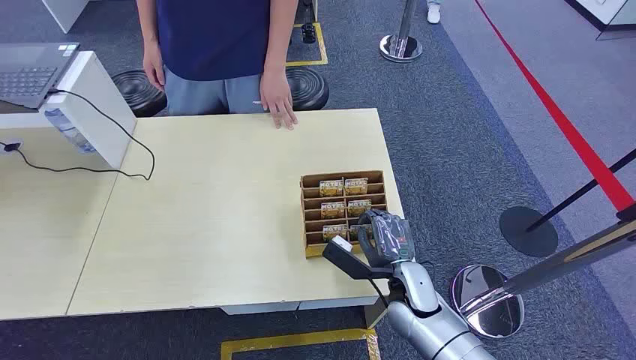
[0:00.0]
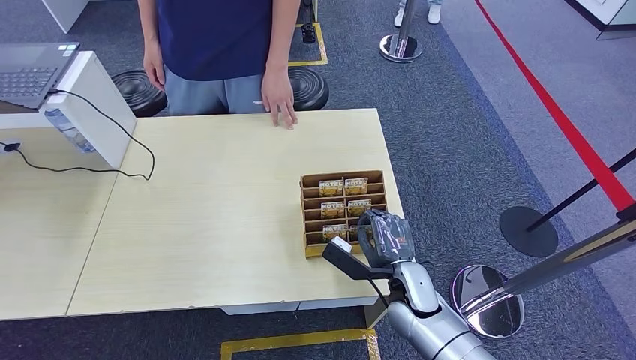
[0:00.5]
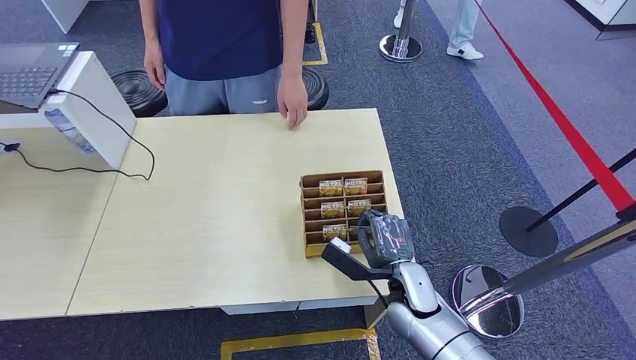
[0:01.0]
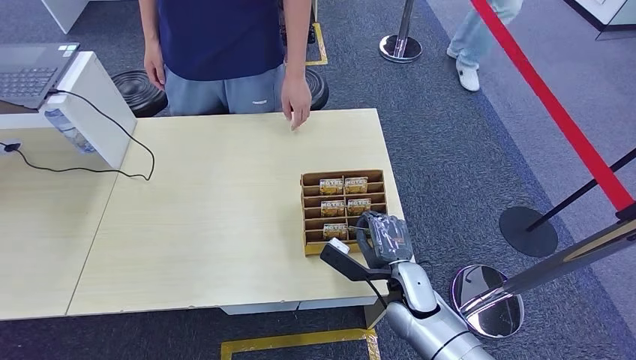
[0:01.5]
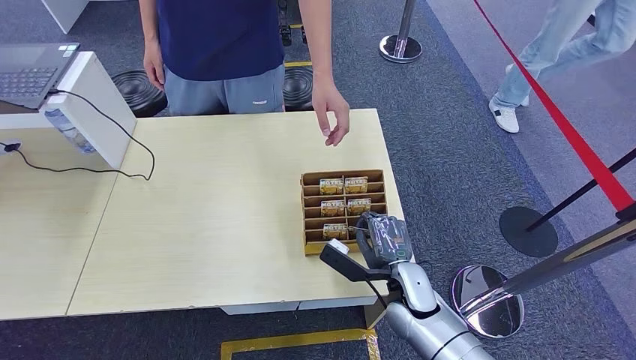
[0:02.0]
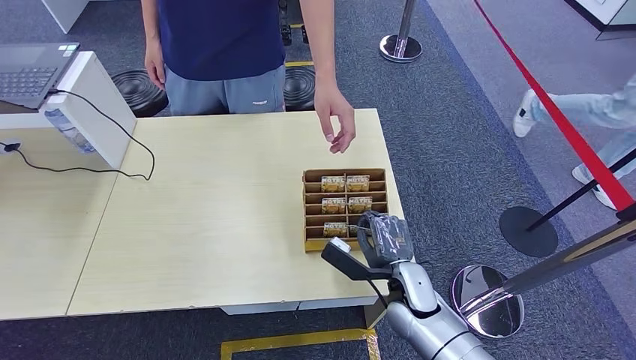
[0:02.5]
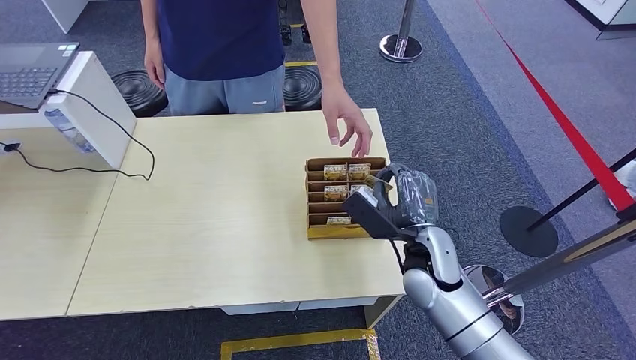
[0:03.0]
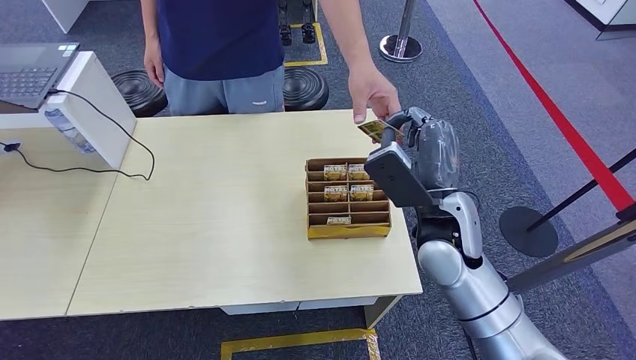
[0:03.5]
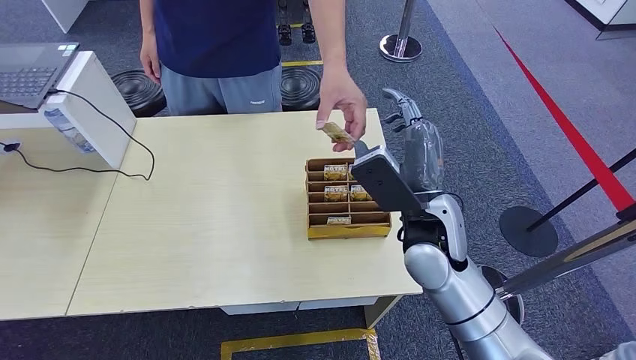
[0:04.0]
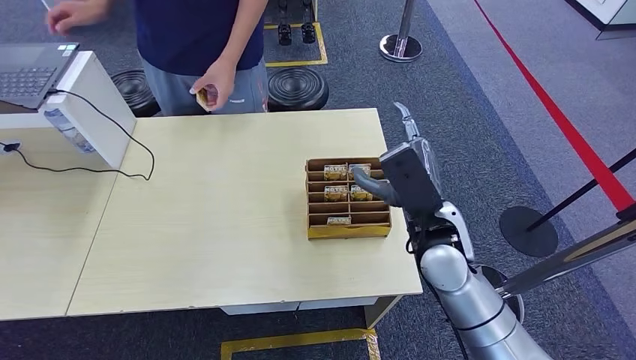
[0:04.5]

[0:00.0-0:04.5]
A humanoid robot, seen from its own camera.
Step, 0:00.0 to 0:02.5: Pick up the room card from the card holder.
Step, 0:03.5 to 0:04.5: Hand the room card to the target.
0:02.0 to 0:04.5: The right hand moves upward, some 15 cm.

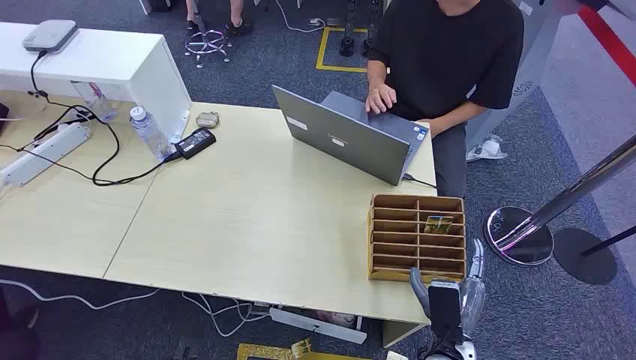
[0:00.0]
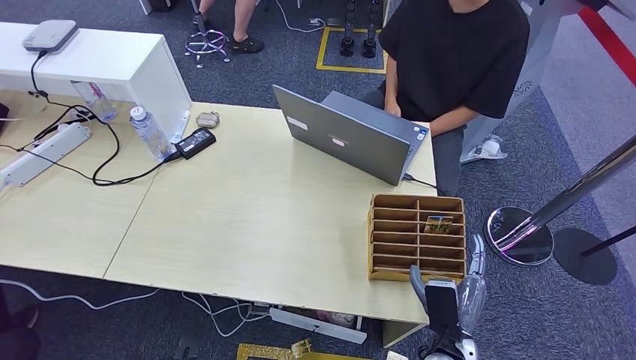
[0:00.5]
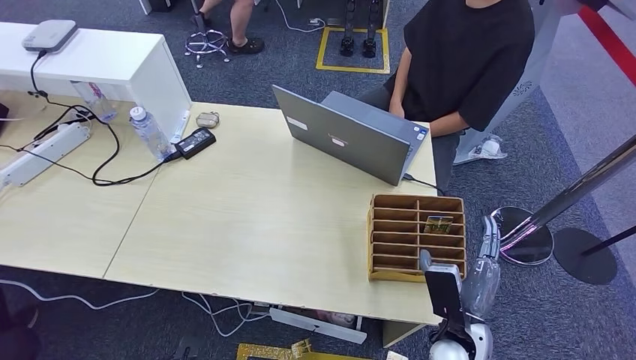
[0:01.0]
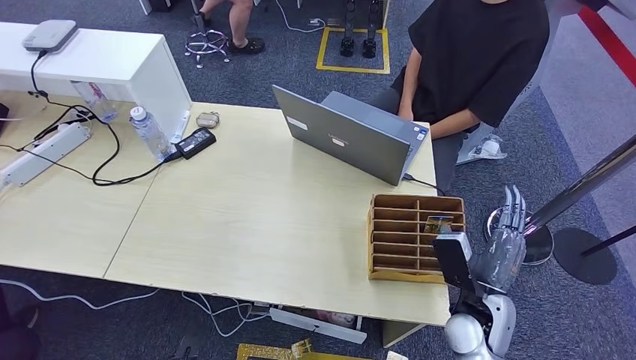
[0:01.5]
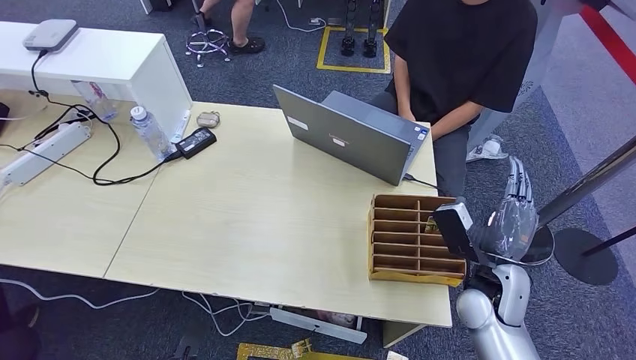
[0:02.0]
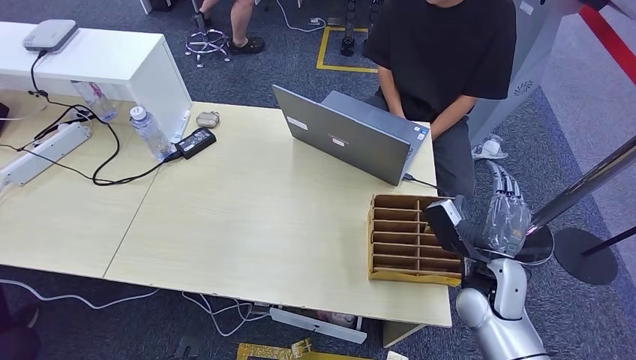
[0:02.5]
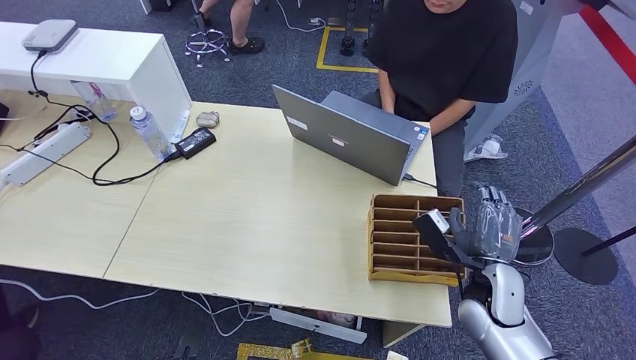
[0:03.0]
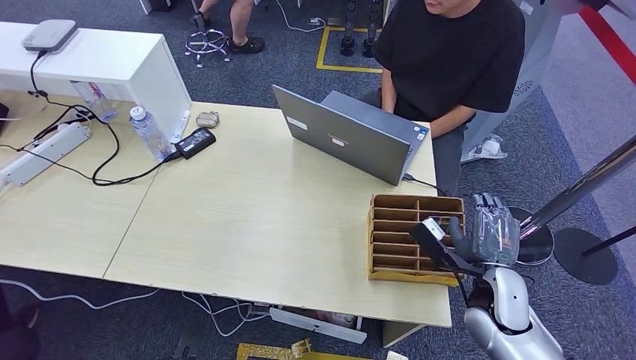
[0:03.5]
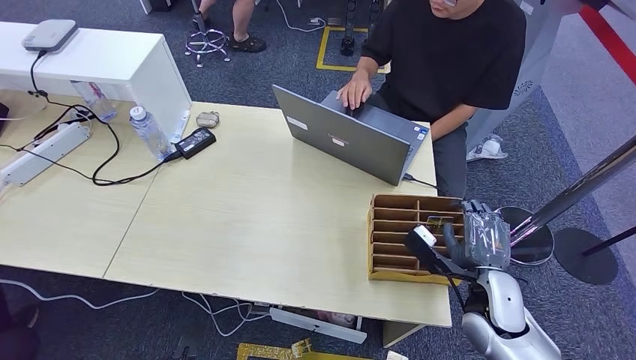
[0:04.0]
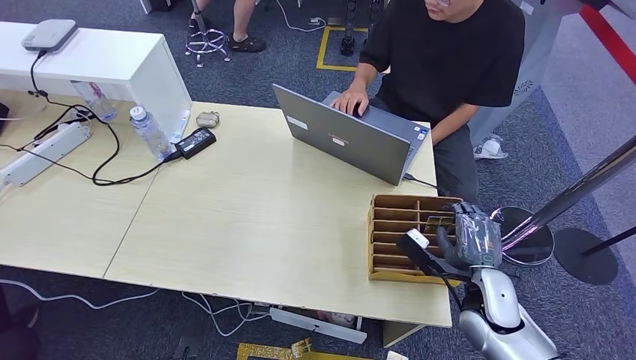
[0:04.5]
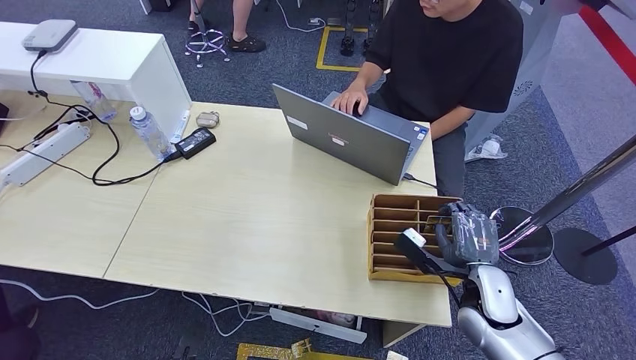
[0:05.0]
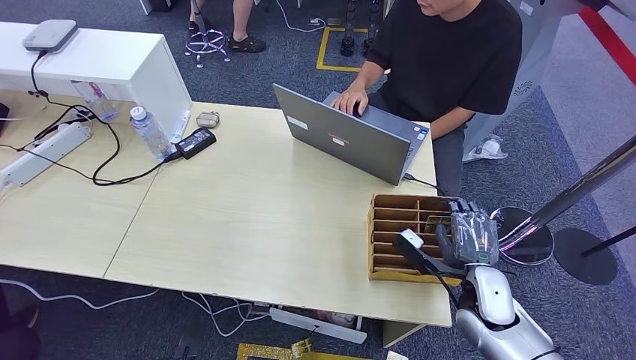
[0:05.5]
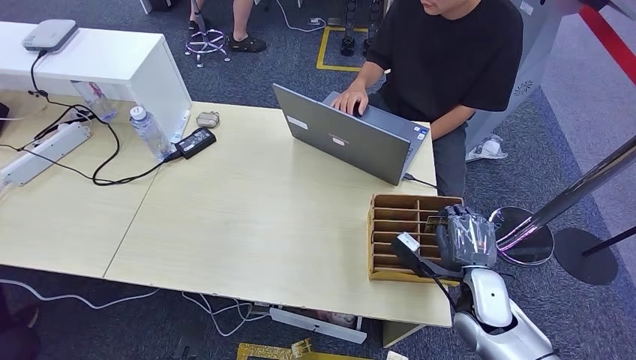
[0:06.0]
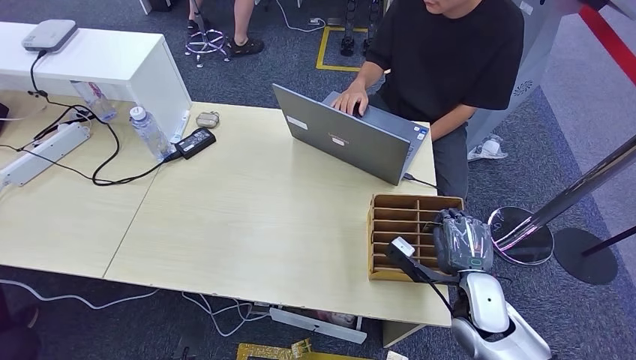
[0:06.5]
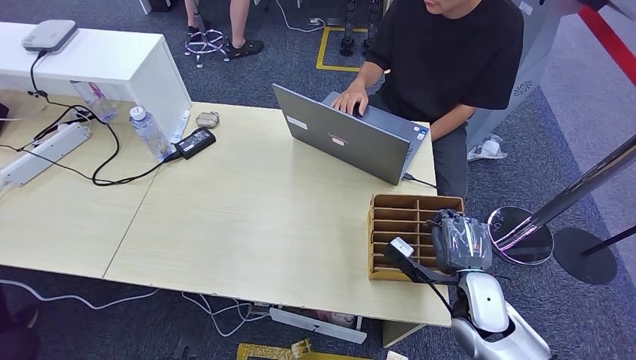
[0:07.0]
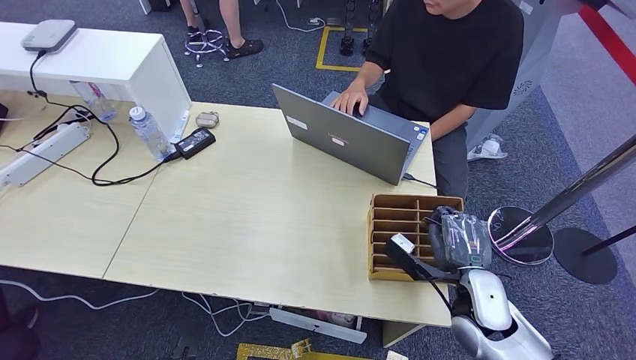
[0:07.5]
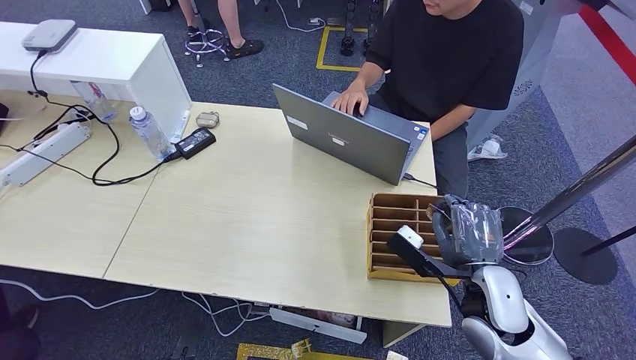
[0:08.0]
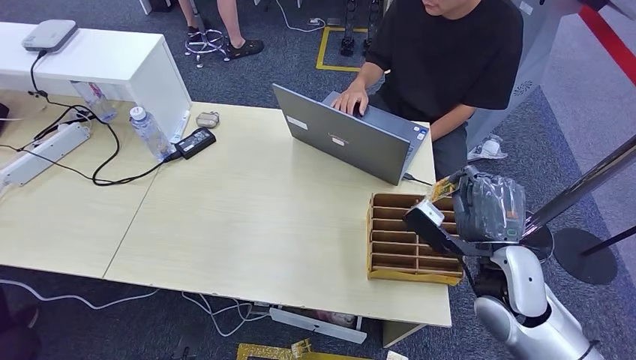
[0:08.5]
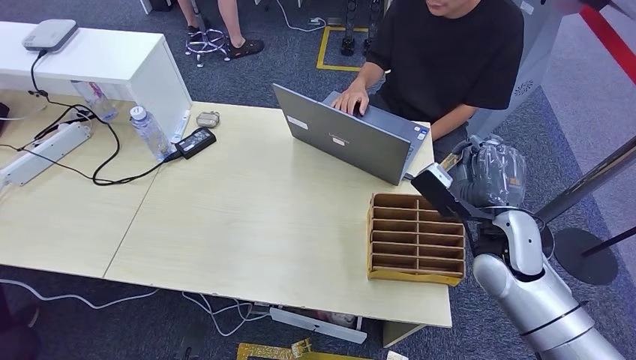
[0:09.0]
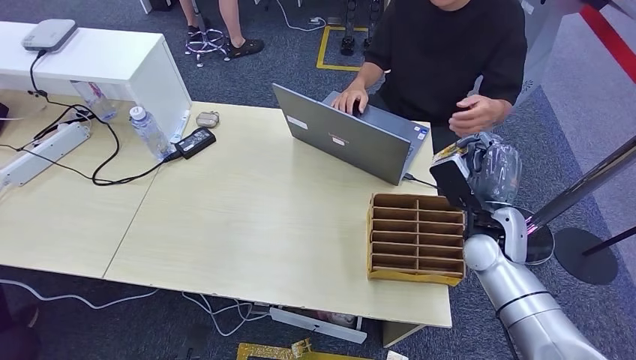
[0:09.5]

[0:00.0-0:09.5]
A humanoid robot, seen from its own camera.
Step, 0:00.0 to 0:08.0: Pick up the room card from the card holder.
Step, 0:09.0 to 0:09.5: Hand the room card to the target.
0:04.0 to 0:07.5: There are only small adjustments of the hands.
0:07.5 to 0:09.5: The right hand is displaced forward and upward by some 10 cm.
